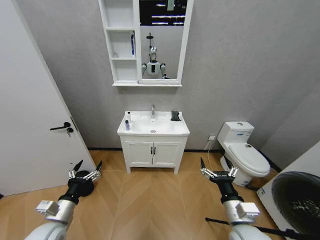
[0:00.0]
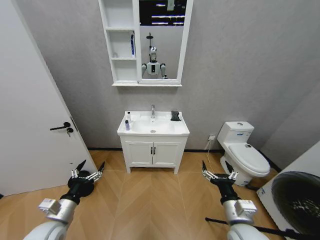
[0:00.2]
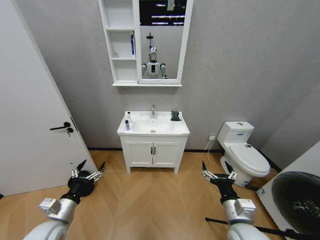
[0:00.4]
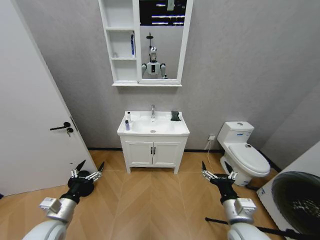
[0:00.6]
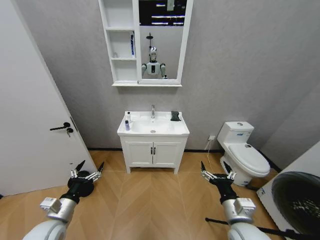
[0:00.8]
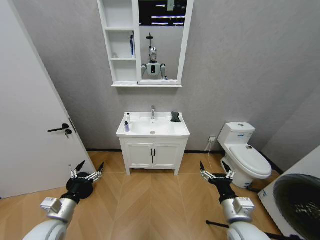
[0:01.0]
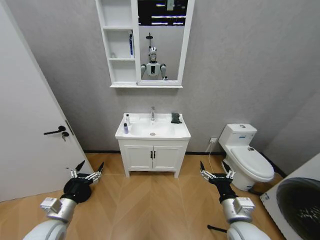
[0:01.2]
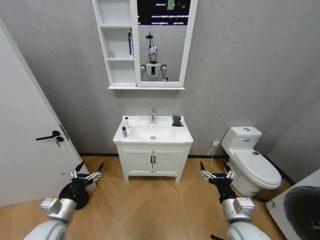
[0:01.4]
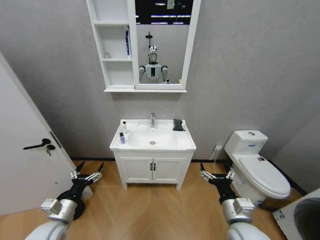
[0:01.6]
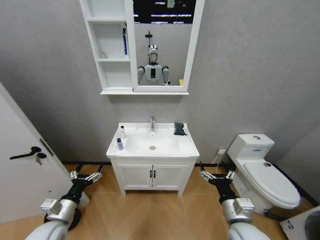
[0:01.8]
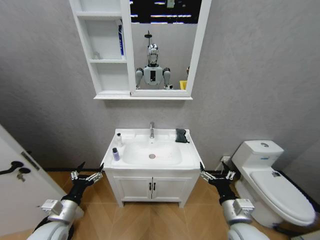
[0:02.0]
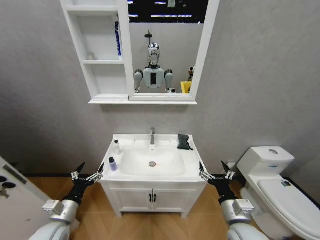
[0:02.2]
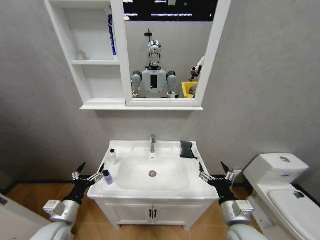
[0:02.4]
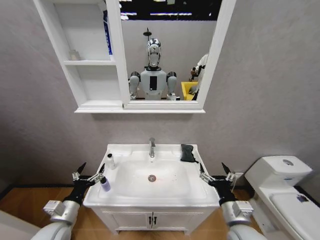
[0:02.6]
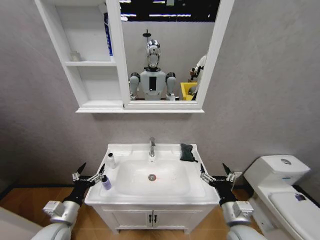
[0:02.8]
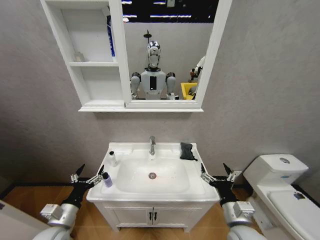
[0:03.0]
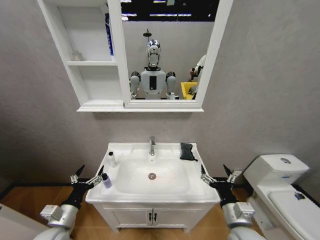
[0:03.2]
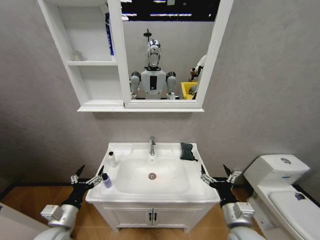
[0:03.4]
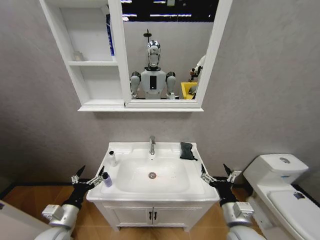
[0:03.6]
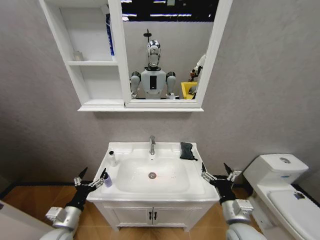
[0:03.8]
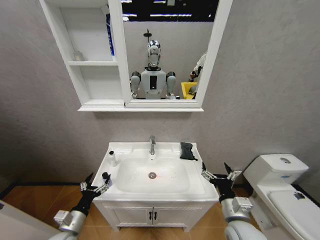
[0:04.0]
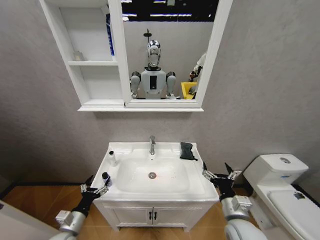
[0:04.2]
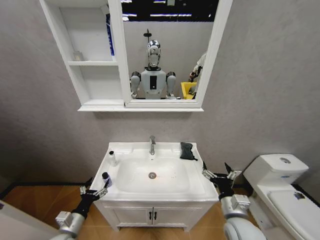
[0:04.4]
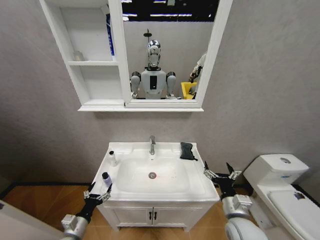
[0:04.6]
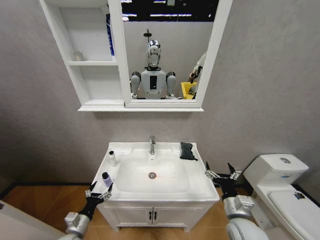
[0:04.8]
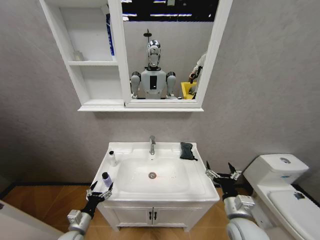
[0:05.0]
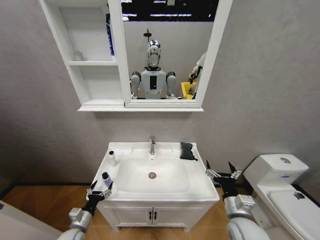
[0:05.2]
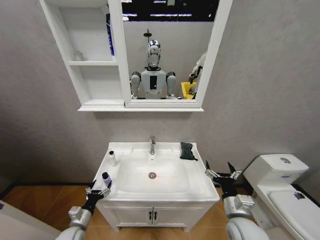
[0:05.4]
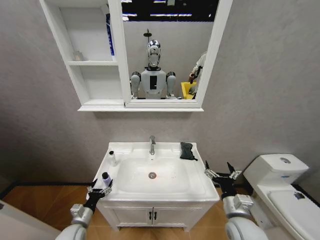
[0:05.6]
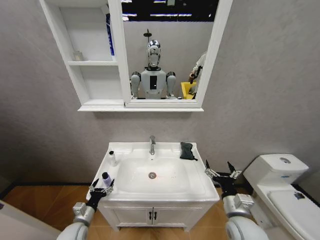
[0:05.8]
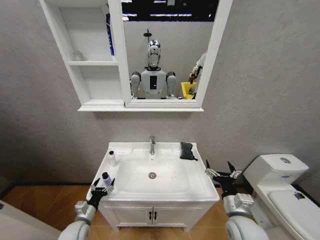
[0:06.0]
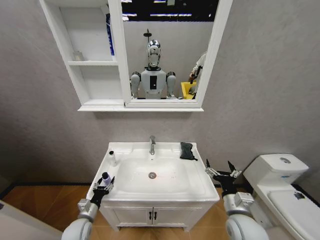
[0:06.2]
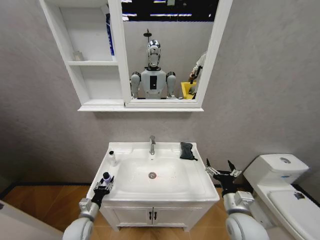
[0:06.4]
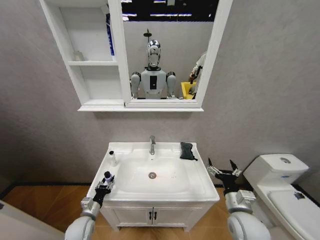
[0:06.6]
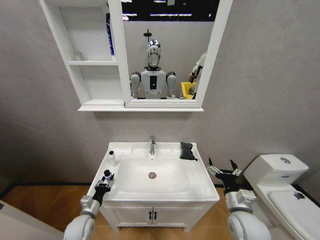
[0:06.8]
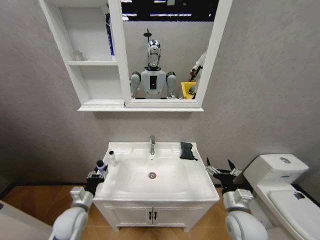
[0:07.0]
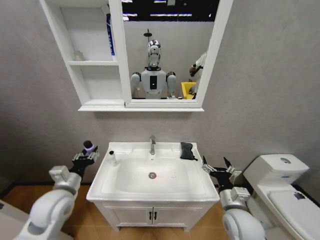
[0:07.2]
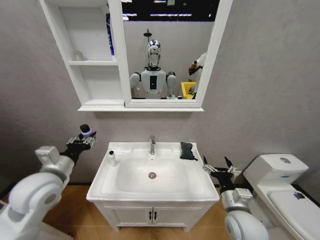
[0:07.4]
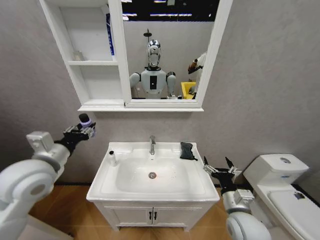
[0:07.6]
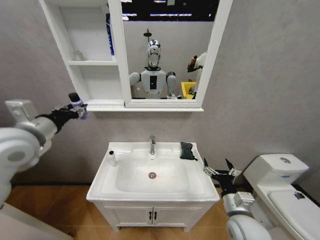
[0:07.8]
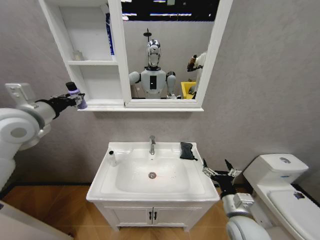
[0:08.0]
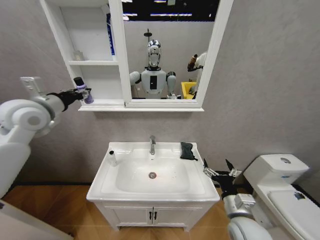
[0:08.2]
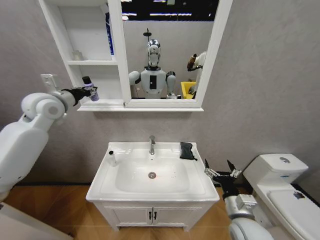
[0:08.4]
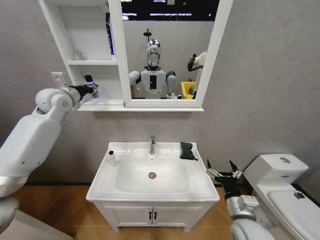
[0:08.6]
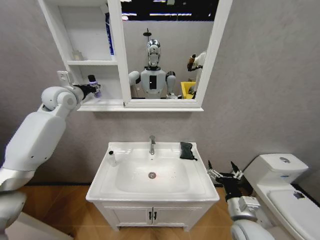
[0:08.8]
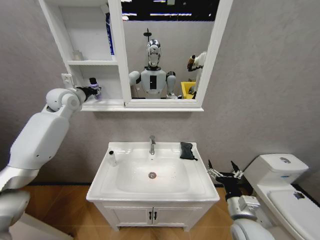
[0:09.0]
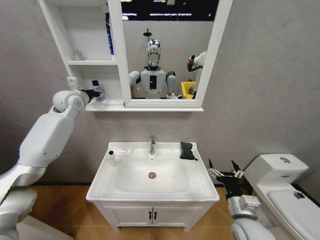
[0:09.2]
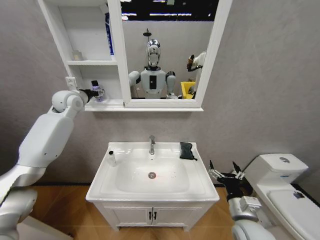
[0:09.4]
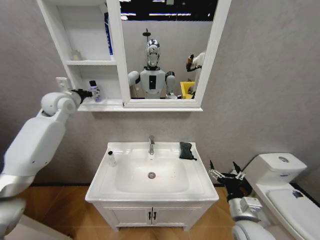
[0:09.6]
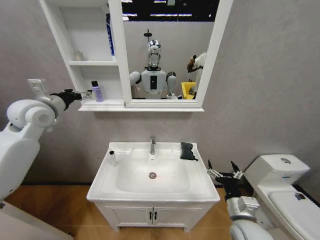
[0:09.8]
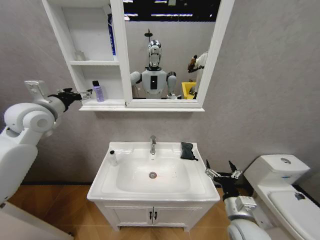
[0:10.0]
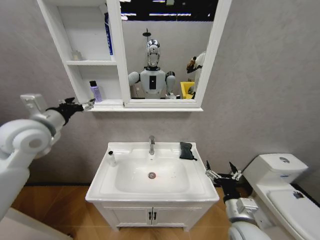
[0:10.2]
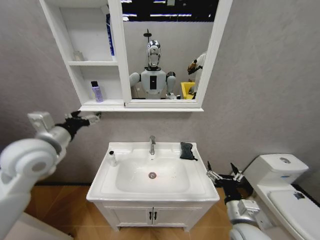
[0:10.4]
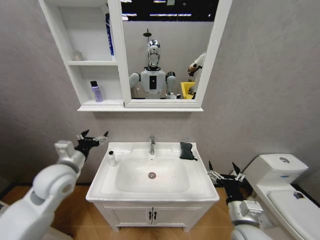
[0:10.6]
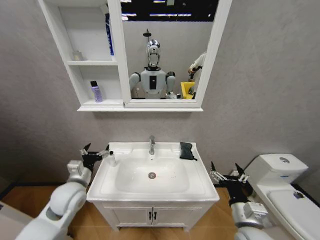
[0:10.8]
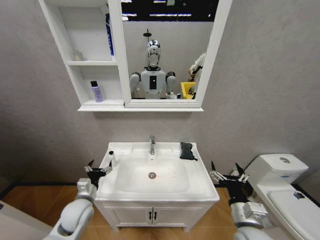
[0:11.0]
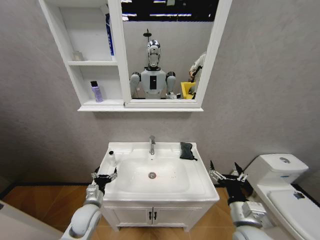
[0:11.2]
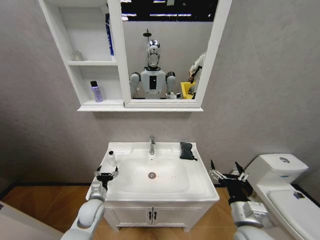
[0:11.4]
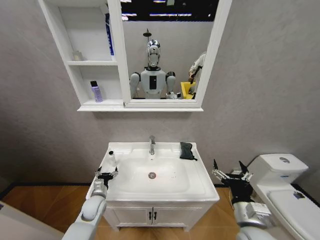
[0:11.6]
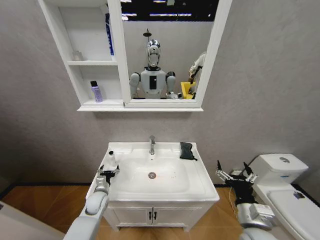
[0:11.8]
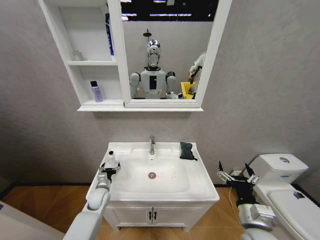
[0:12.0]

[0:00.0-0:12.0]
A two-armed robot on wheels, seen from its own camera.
Task of the whole recording: Move facial cleanser and shampoo from washbasin to cabinet, then wipe washbasin with towel.
0:03.0 to 0:04.4: The left gripper travels downward by roughly 10 cm.
0:04.4 to 0:06.0: The left gripper goes about 5 cm forward.
0:06.0 to 0:07.6: The left gripper moves upward, about 35 cm, and closes its fingers.
0:07.6 to 0:09.0: The left gripper travels forward and upward by roughly 25 cm.
0:09.0 to 0:10.4: The left gripper shifts about 25 cm backward and downward, and opens.
0:10.4 to 0:12.0: The left gripper goes about 35 cm downward.

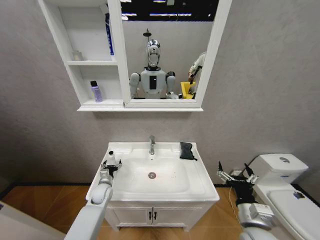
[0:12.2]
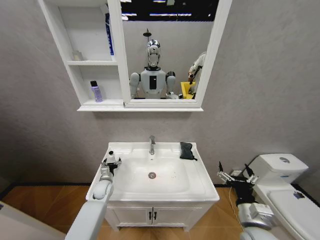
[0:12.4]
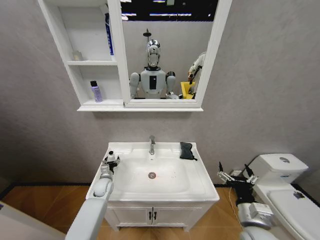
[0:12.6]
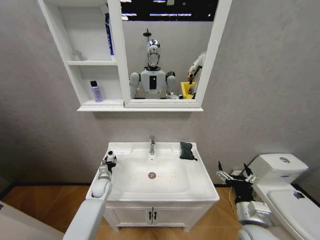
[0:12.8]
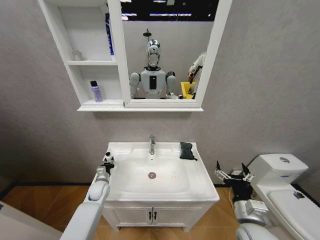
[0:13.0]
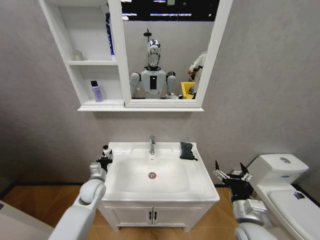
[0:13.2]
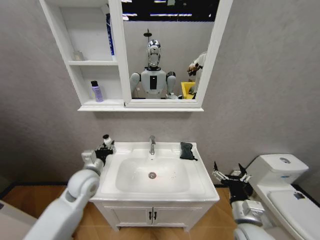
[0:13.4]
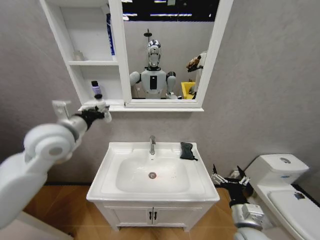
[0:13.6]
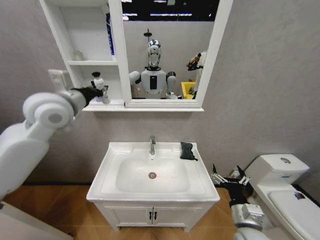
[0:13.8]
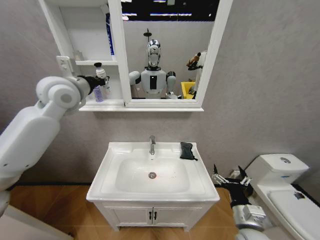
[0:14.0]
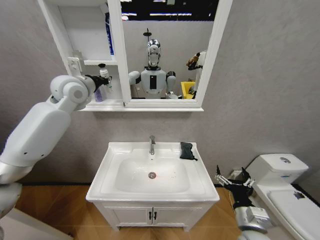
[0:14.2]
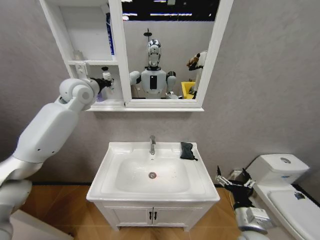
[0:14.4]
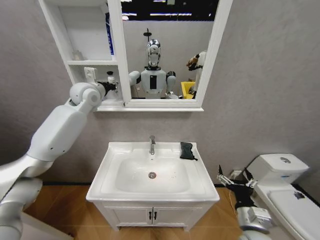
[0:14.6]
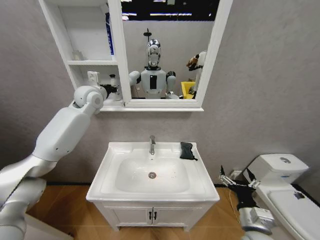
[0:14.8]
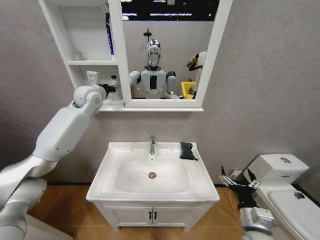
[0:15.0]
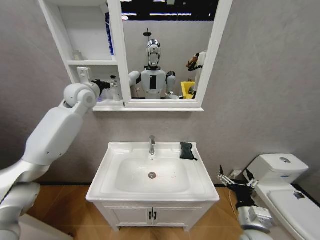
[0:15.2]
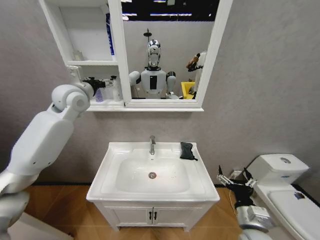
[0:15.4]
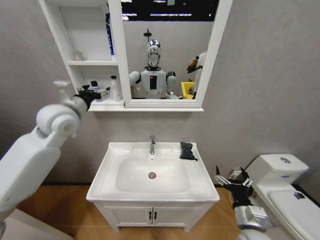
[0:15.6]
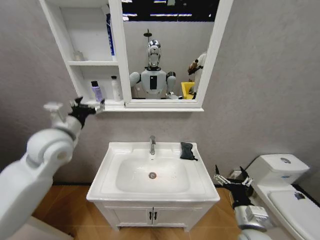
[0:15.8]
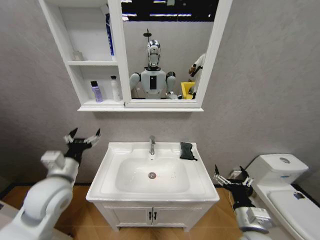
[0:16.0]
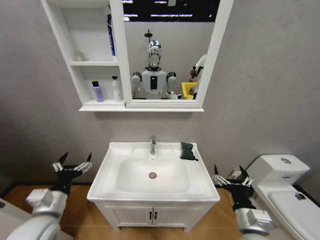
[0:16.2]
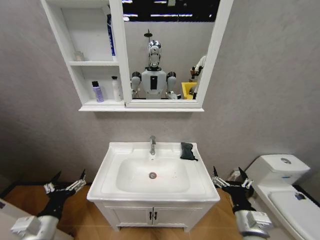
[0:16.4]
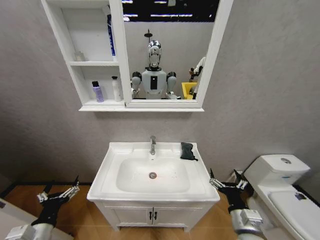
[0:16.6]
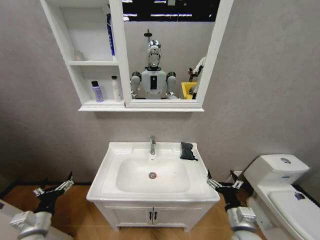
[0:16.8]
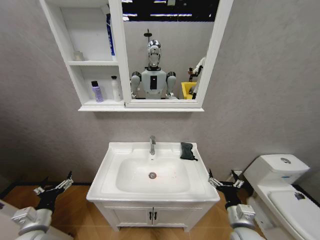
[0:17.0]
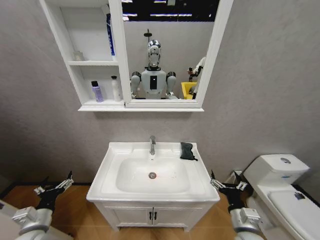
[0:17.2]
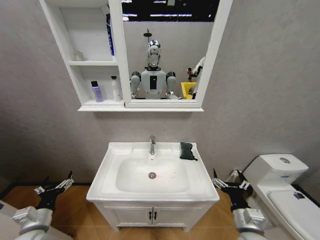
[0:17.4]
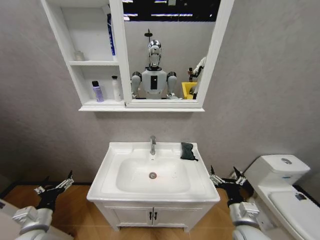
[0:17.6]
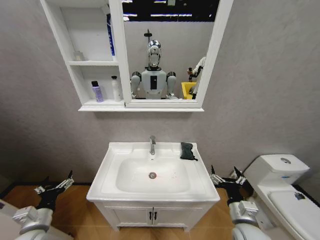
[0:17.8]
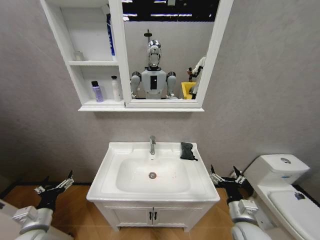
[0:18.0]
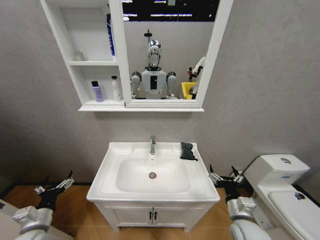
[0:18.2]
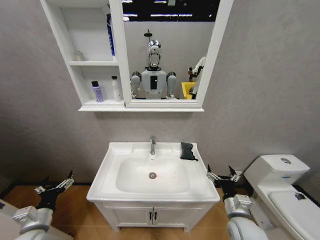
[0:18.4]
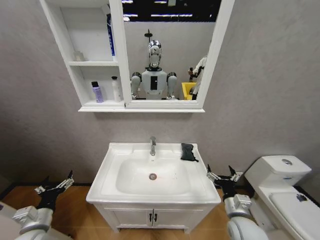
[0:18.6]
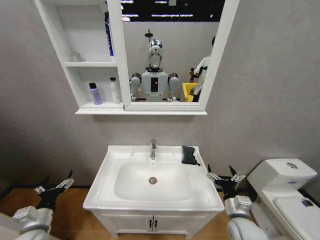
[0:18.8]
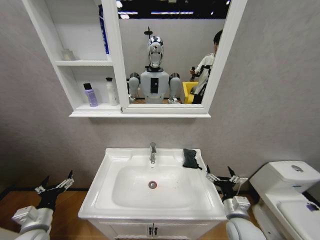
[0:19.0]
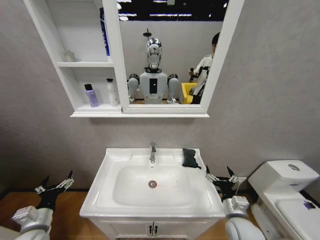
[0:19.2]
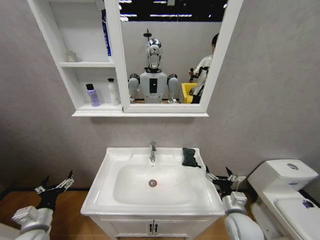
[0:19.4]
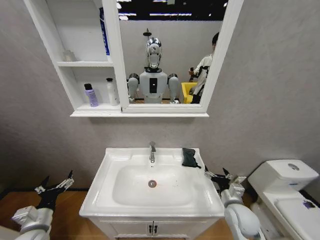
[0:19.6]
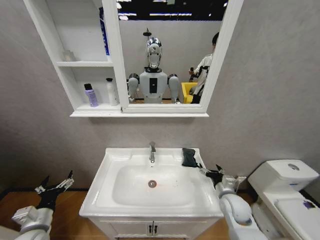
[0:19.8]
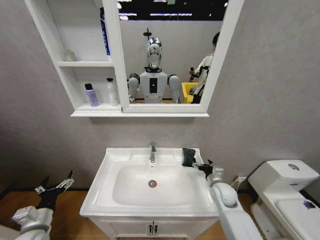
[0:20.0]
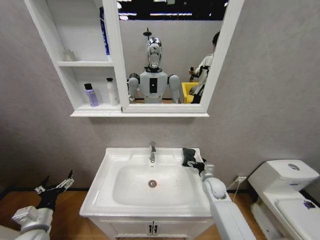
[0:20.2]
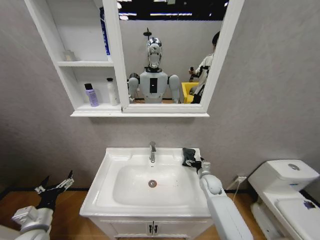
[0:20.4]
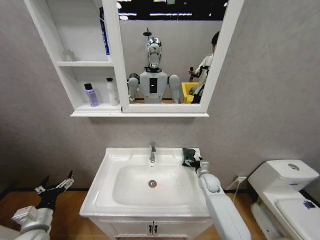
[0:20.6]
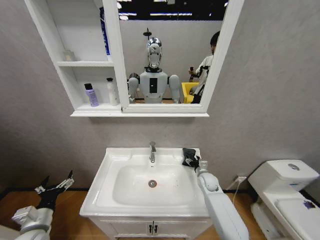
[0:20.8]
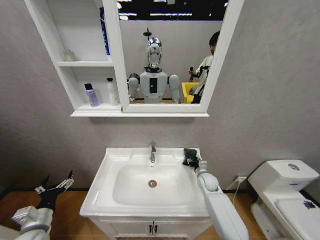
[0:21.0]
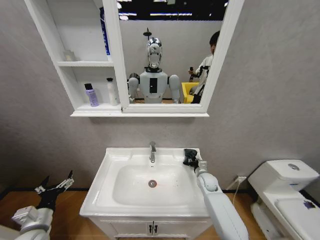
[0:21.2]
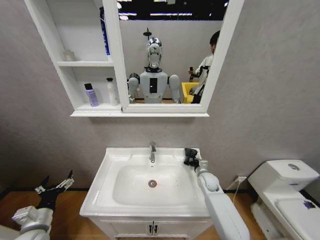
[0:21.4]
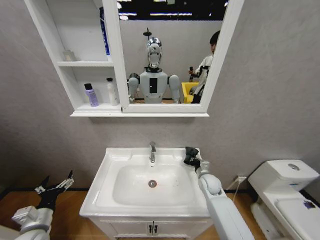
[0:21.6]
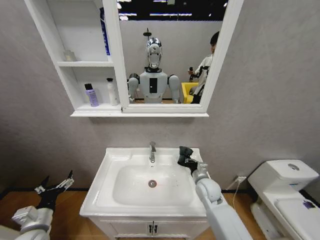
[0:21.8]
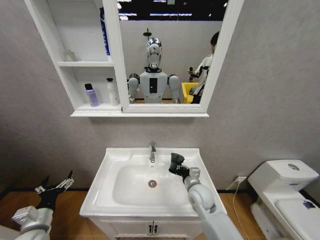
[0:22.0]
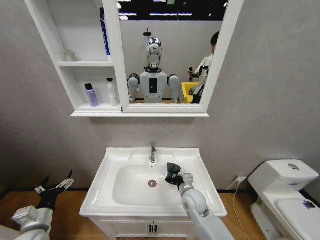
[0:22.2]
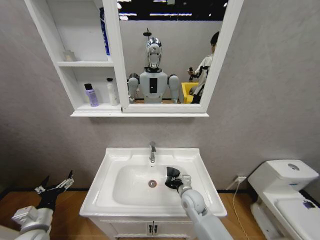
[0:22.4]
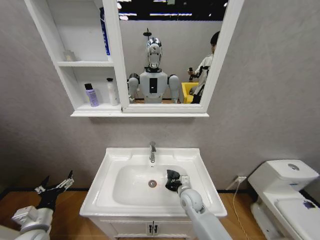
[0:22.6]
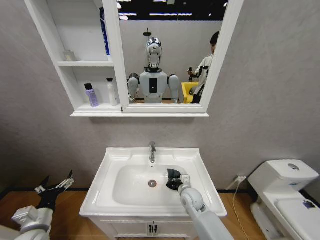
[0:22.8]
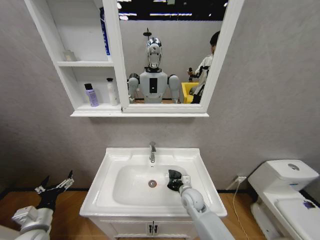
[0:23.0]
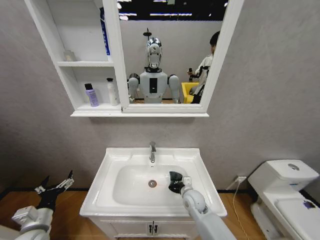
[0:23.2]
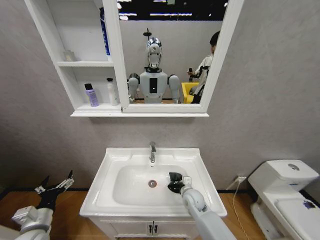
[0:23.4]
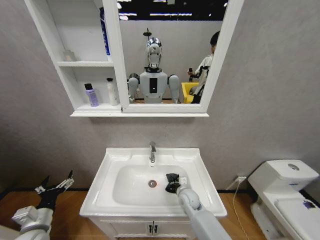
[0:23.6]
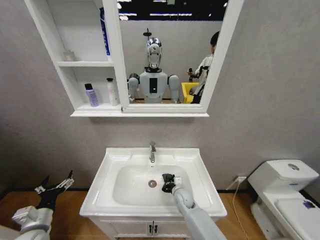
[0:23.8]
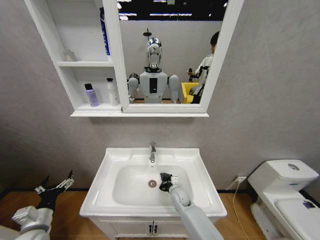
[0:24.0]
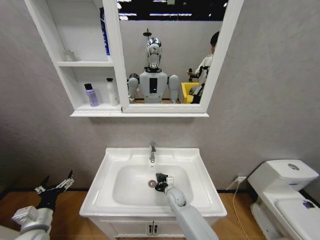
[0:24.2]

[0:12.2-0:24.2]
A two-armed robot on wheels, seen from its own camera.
Task of the whole recording: Move facial cleanser and shampoo from washbasin to cabinet, then wipe washbasin with towel.
0:12.2 to 0:13.8: The left gripper heads upward, covering about 50 cm, and closes.
0:13.8 to 0:15.2: The left gripper travels forward by roughly 15 cm, and opens.
0:15.2 to 0:16.6: The left gripper heads backward and downward, covering approximately 50 cm.
0:16.6 to 0:18.2: The left gripper is displaced forward by about 5 cm.
0:18.2 to 0:19.8: The right gripper moves forward, roughly 10 cm.
0:19.8 to 0:21.2: The right gripper heads forward, covering some 15 cm, and closes.
0:21.2 to 0:22.6: The right gripper shifts roughly 15 cm to the left and backward.
0:22.6 to 0:24.2: The right gripper moves downward and to the left, about 10 cm.
